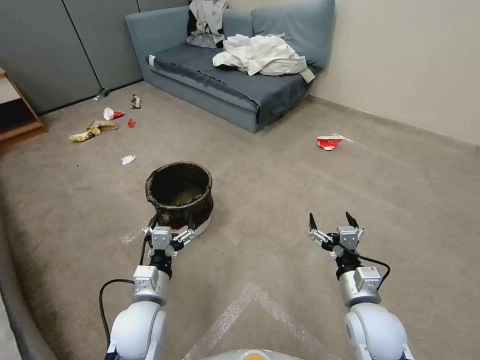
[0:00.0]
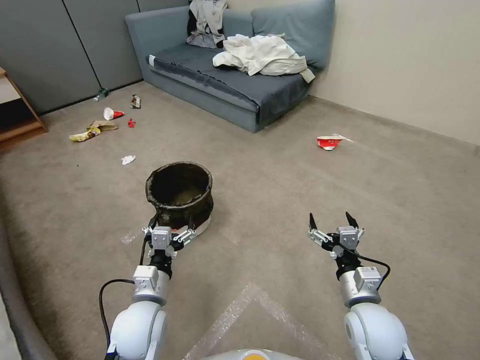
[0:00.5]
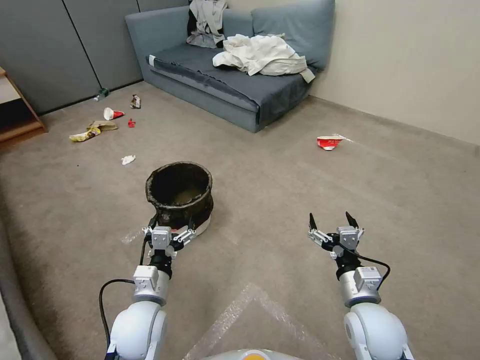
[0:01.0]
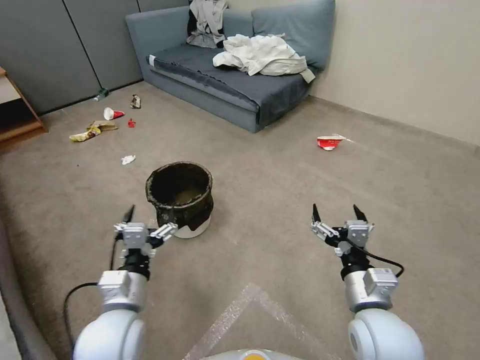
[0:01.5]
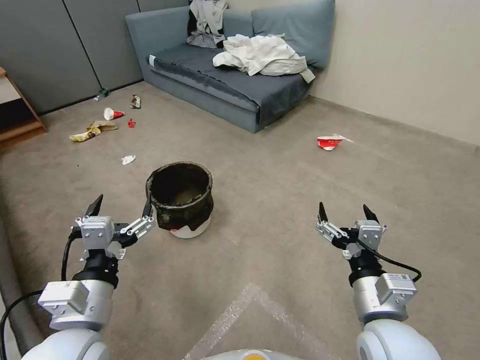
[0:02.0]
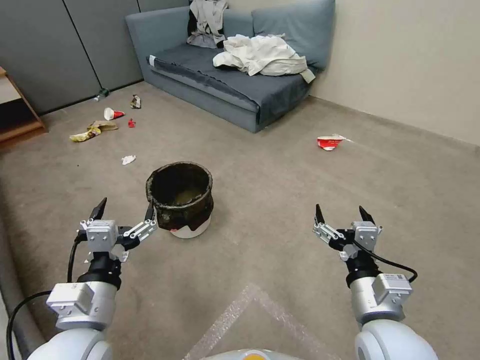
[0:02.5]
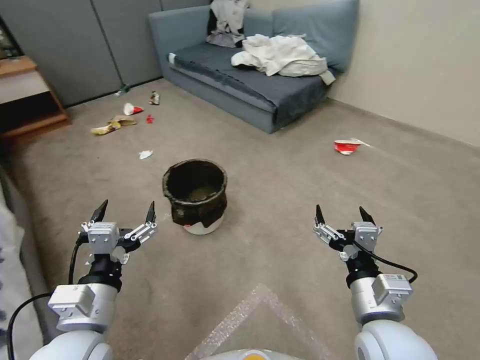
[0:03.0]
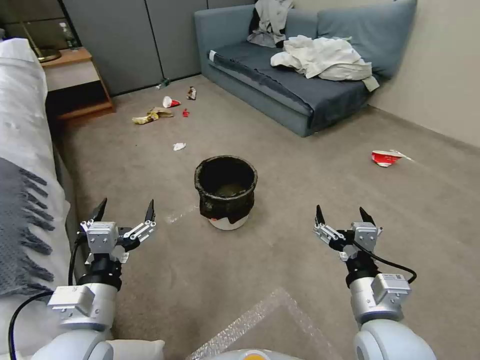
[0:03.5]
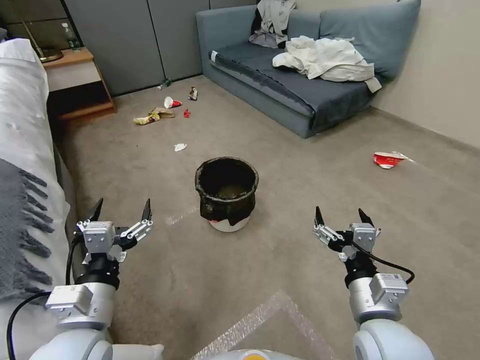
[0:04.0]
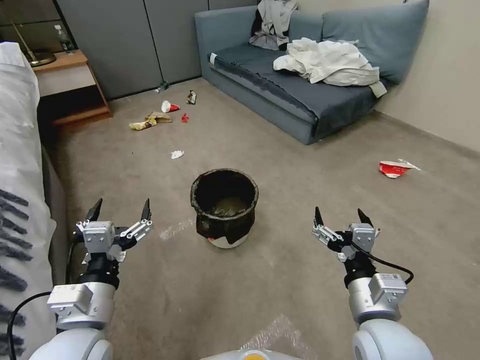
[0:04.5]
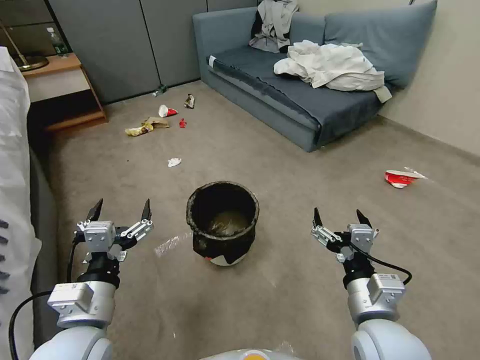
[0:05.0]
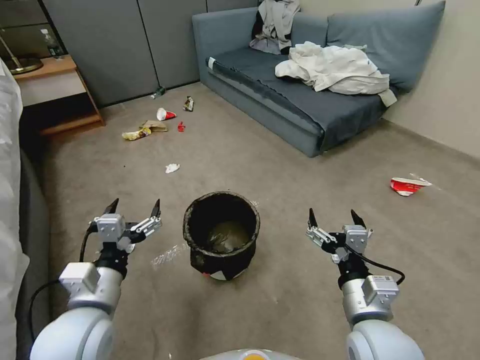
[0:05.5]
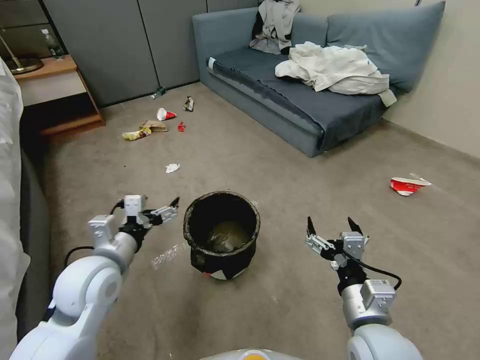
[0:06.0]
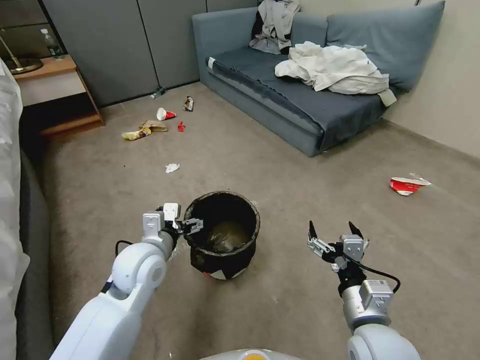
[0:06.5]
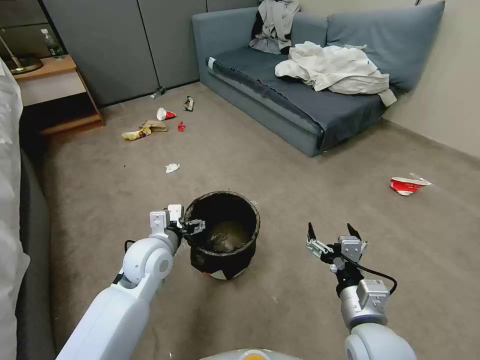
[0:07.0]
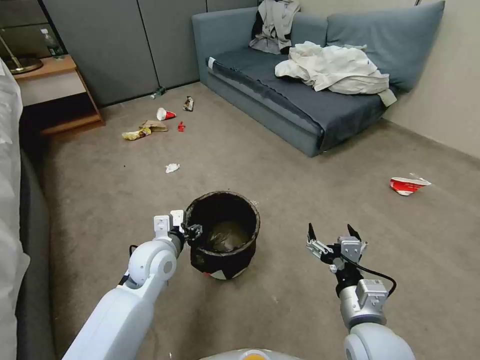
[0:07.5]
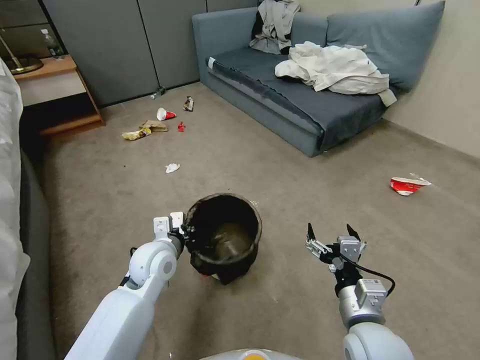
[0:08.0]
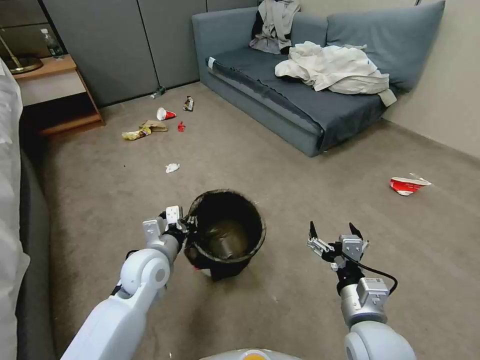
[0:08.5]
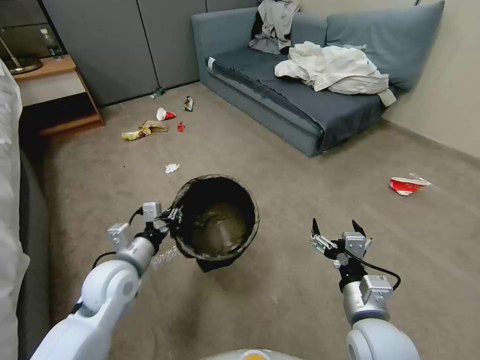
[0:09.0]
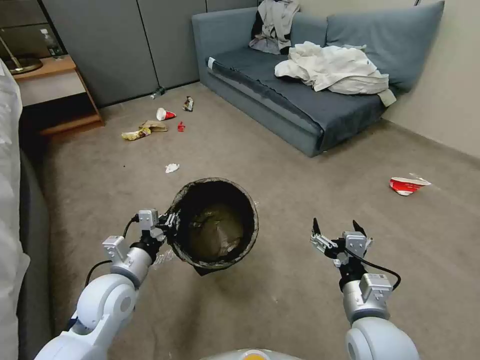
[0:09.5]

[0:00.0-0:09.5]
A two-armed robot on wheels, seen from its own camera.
Task of the whole recording: Pick up the trash can from the floor.
0:05.5 to 0:07.5: The left gripper moves forward and downward, about 15 cm, and closes.
0:07.5 to 0:09.5: The left gripper shifts approximately 10 cm backward and to the left, and closes up.
